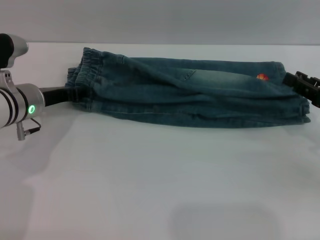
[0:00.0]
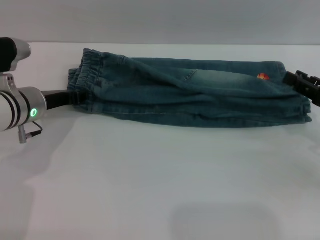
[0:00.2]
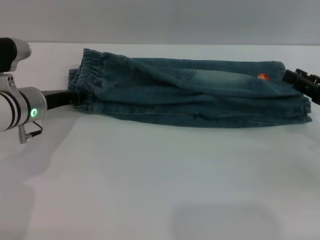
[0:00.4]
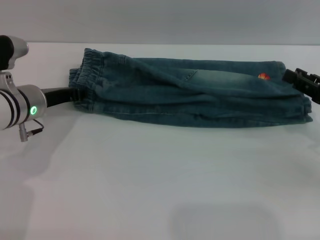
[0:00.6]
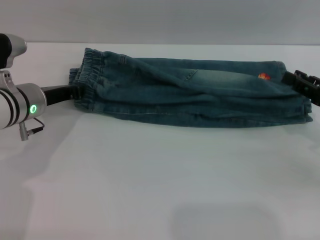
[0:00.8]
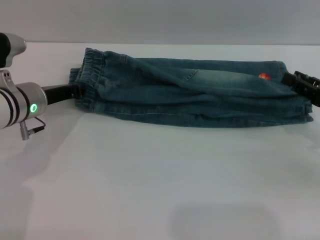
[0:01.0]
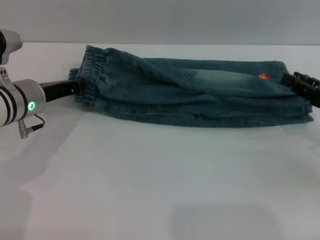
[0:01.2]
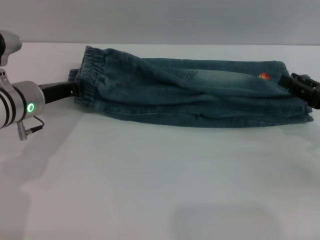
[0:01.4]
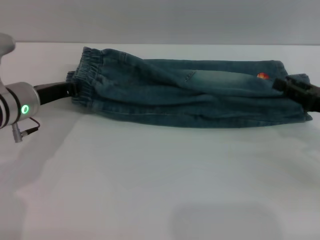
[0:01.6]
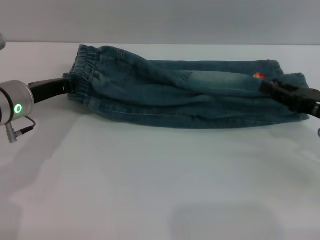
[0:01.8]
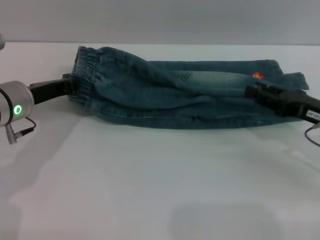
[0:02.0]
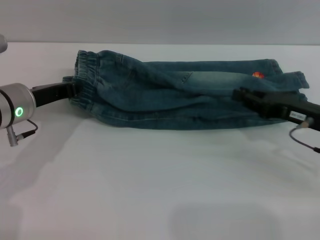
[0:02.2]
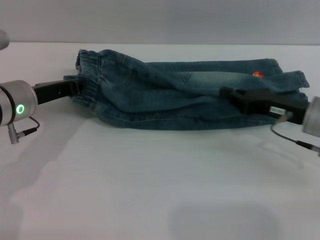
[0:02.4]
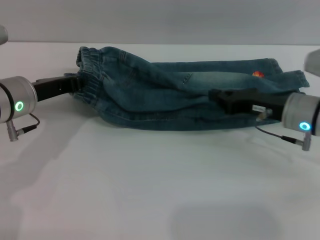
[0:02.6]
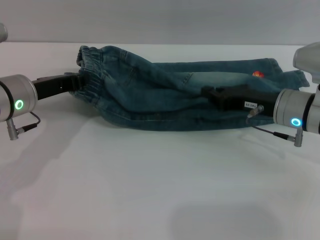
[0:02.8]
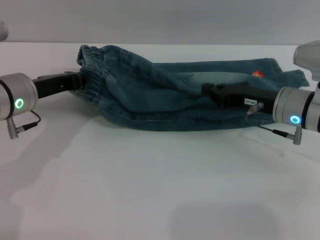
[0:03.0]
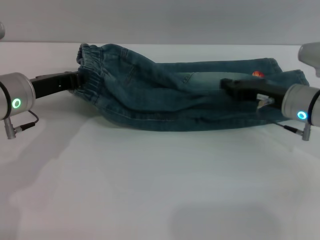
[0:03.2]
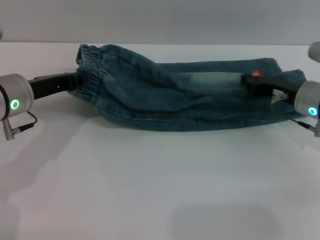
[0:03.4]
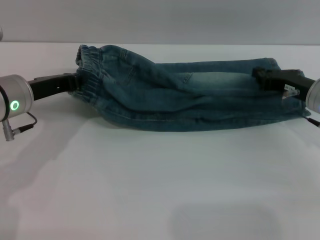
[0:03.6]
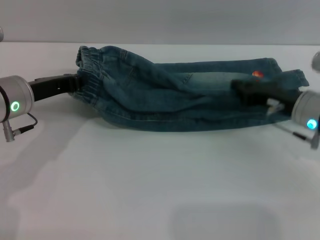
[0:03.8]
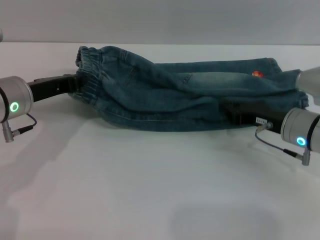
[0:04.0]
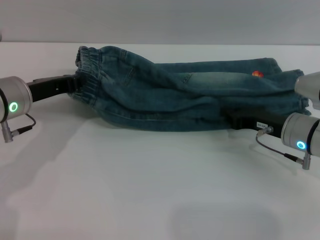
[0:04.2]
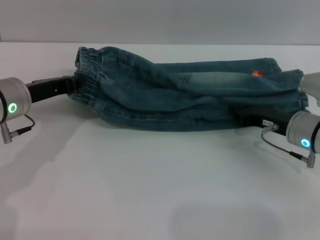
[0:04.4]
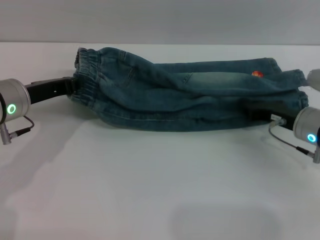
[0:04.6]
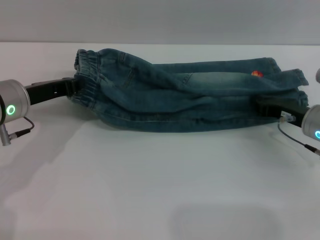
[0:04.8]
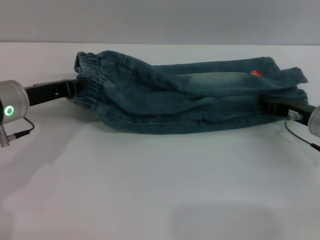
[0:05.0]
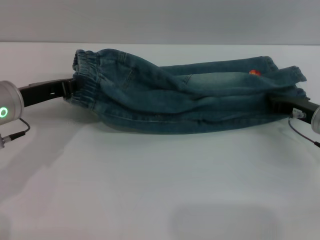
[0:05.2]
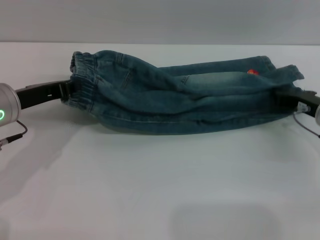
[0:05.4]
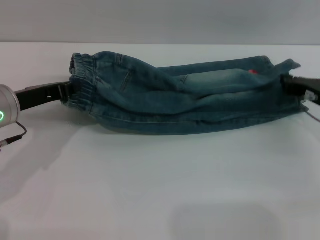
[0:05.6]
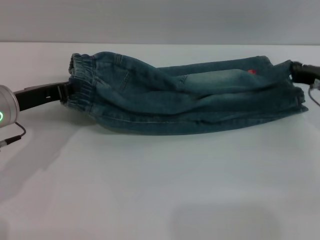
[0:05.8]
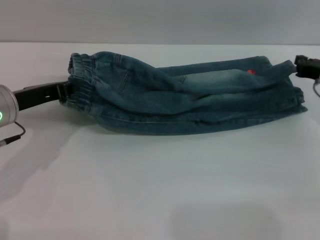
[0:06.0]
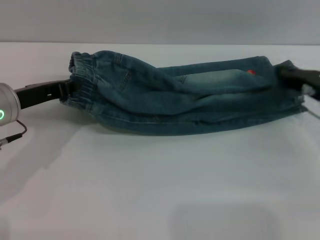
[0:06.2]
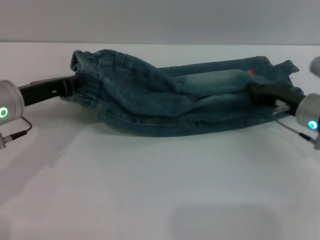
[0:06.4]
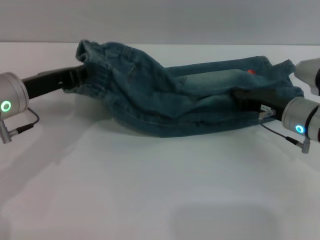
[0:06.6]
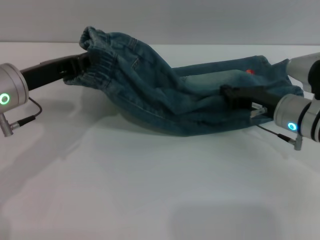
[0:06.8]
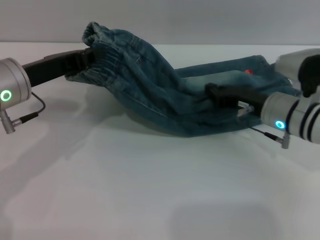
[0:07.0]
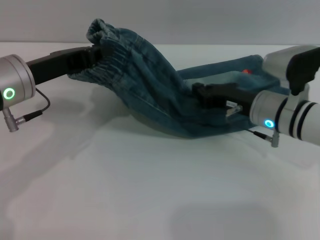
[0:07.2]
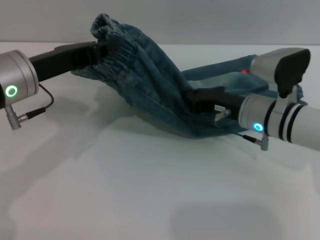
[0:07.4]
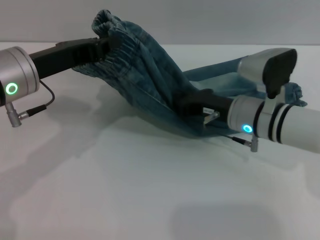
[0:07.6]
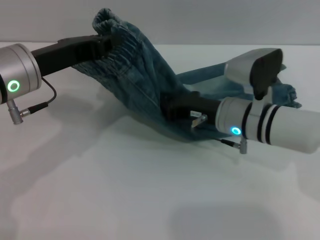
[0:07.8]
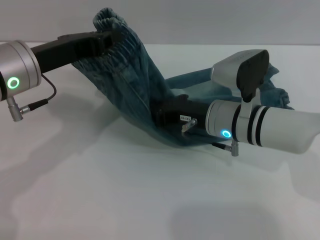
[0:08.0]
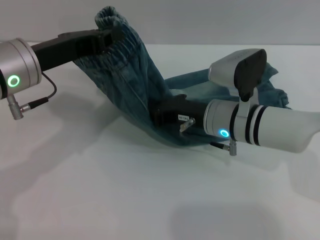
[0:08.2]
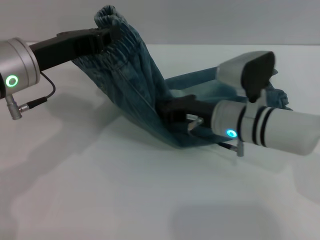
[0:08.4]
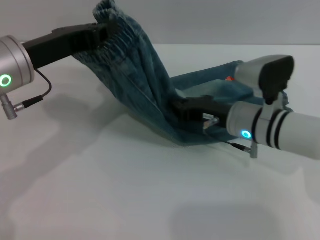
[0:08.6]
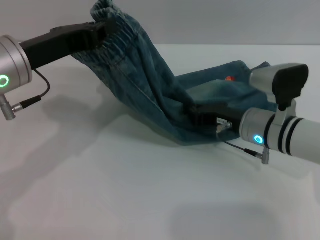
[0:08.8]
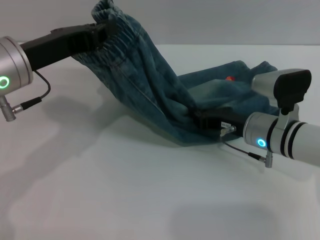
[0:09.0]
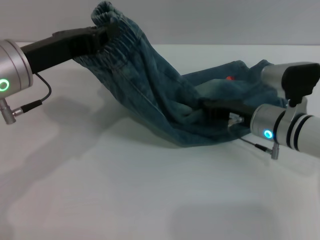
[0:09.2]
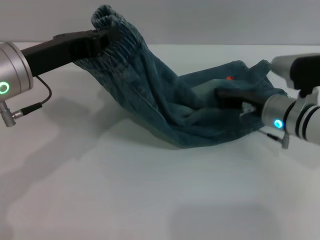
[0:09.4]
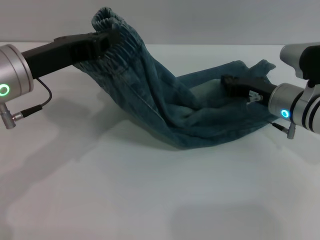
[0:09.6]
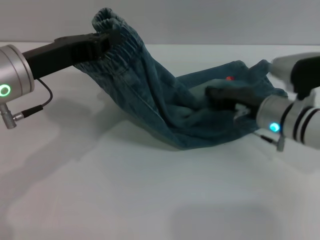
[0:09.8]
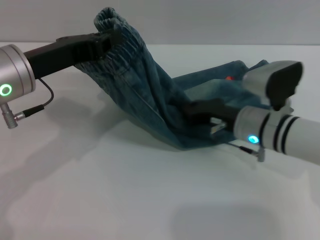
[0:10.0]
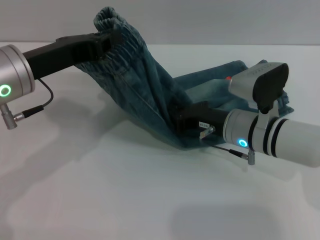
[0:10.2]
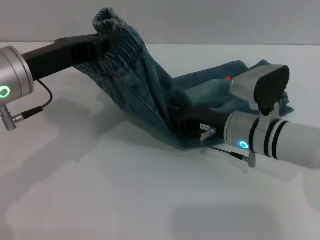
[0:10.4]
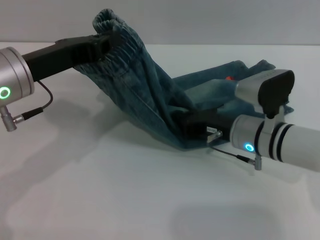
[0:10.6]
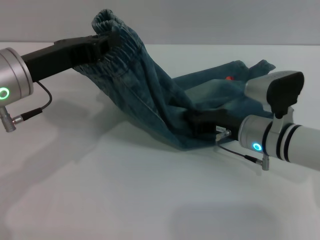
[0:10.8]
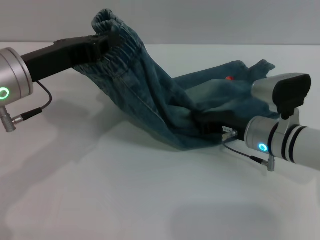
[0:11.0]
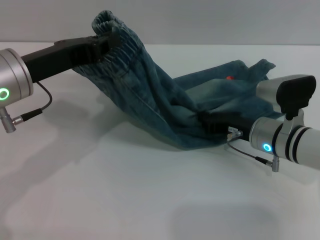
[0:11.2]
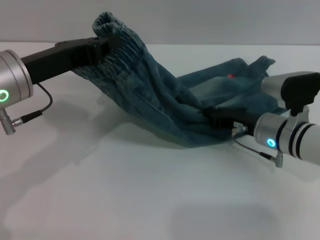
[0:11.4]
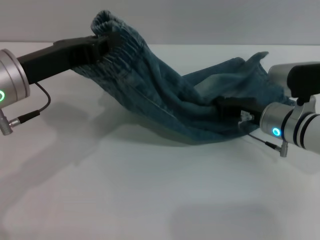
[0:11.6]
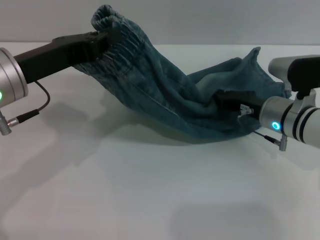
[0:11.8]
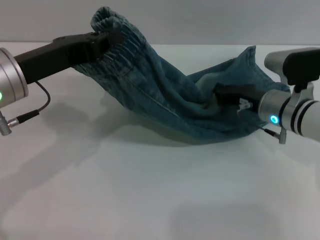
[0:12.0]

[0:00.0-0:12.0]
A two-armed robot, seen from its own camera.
0:00.0 to 0:01.6: The left gripper closes its fingers.
0:01.6 to 0:03.0: The right gripper travels to the left and forward by roughly 15 cm, and closes.
0:03.0 to 0:04.4: The grippers move only a little.
0:04.4 to 0:06.0: The right gripper shifts roughly 5 cm to the right.
0:06.0 to 0:07.6: The right gripper moves to the left, about 15 cm; the left gripper heads upward, covering about 5 cm.
0:09.0 to 0:10.4: The grippers make only small movements.
0:10.4 to 0:12.0: The right gripper heads to the right, covering roughly 5 cm.

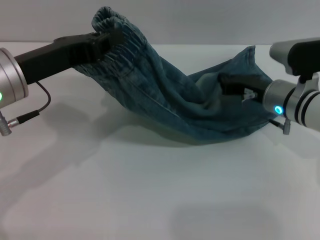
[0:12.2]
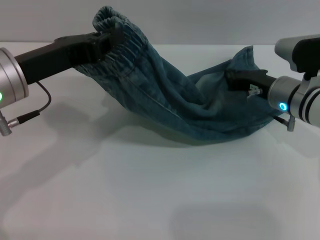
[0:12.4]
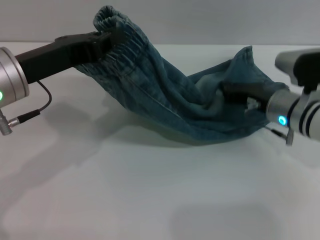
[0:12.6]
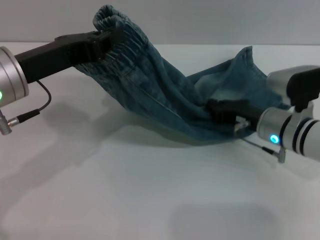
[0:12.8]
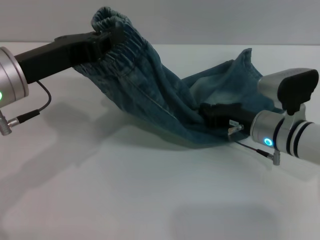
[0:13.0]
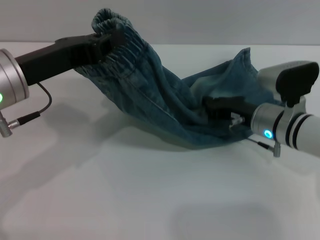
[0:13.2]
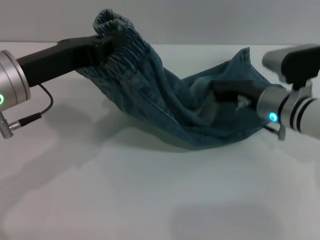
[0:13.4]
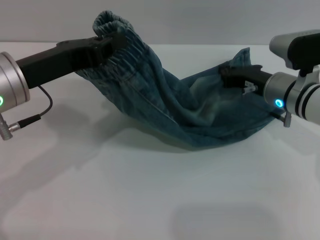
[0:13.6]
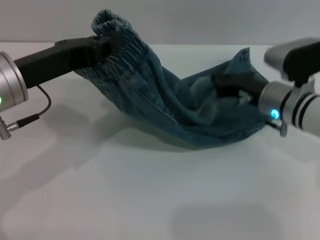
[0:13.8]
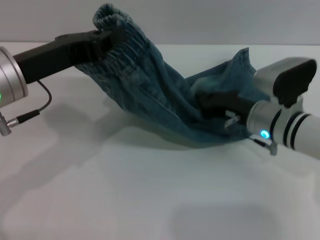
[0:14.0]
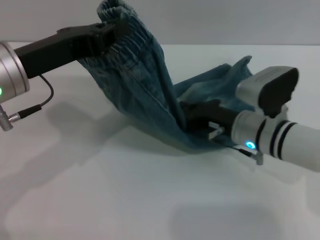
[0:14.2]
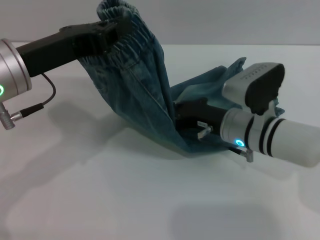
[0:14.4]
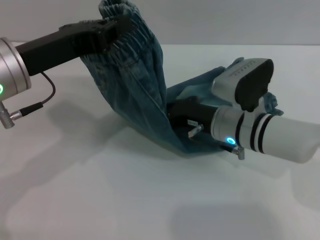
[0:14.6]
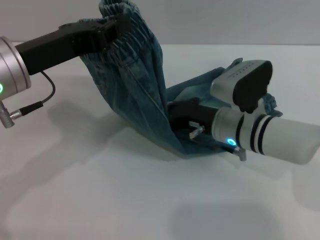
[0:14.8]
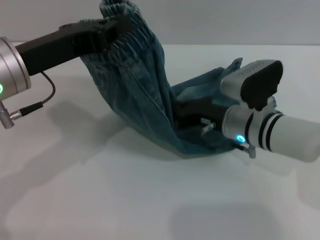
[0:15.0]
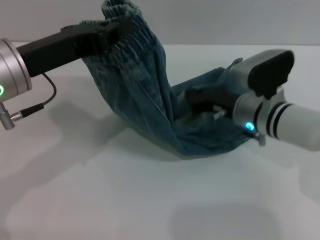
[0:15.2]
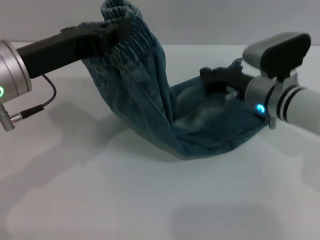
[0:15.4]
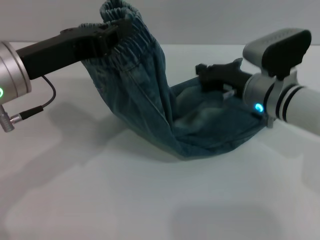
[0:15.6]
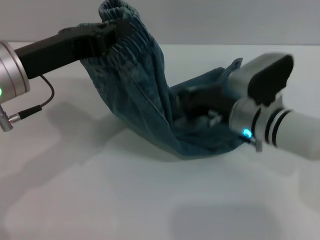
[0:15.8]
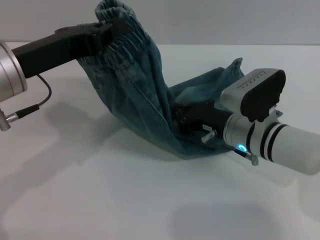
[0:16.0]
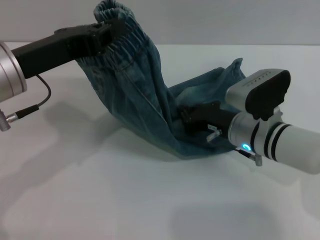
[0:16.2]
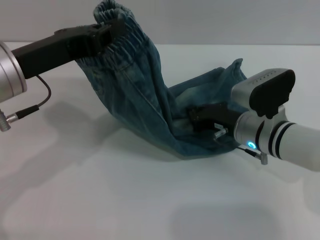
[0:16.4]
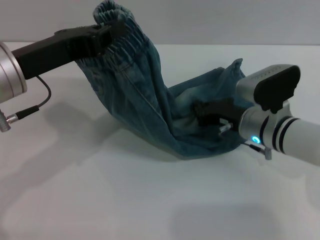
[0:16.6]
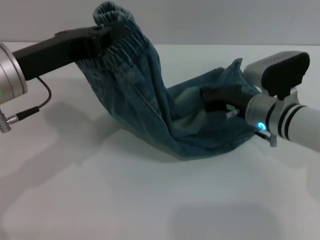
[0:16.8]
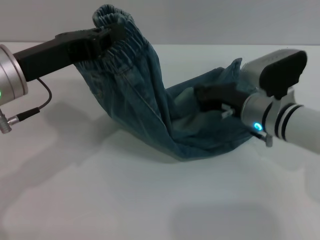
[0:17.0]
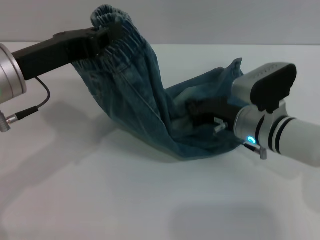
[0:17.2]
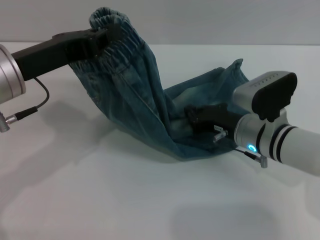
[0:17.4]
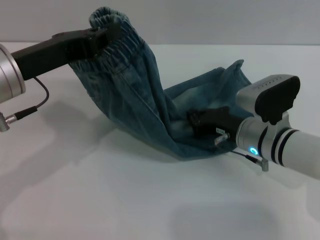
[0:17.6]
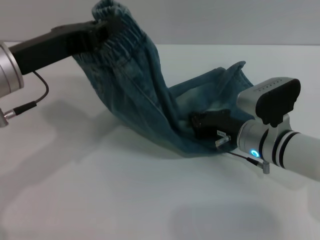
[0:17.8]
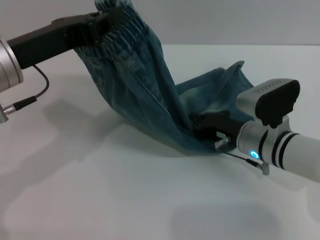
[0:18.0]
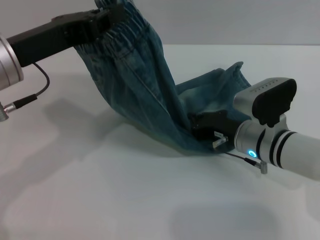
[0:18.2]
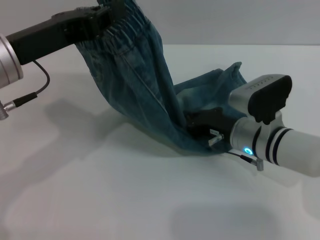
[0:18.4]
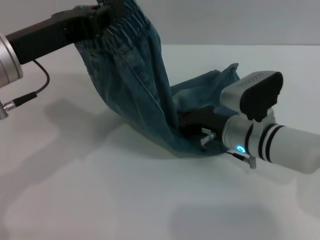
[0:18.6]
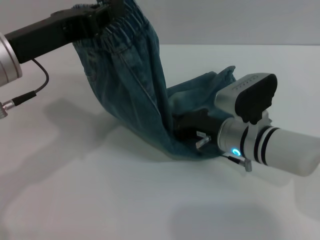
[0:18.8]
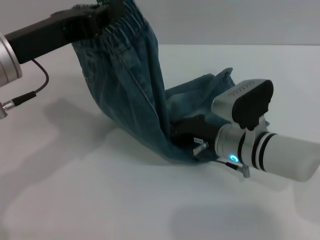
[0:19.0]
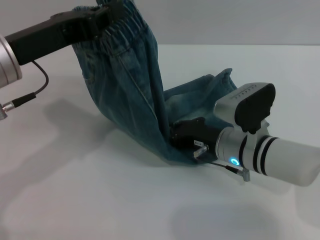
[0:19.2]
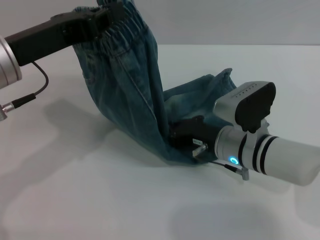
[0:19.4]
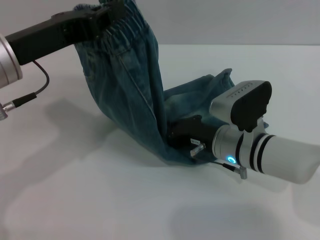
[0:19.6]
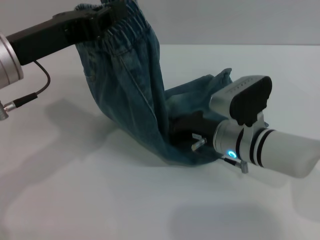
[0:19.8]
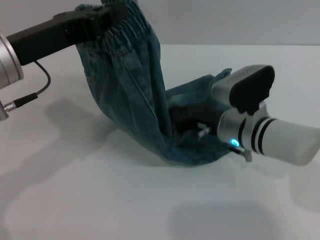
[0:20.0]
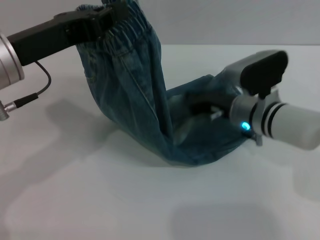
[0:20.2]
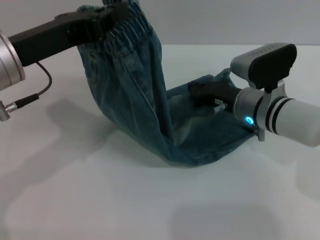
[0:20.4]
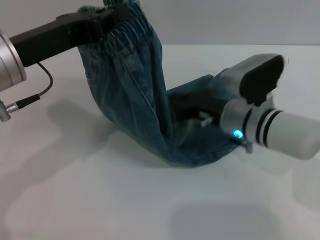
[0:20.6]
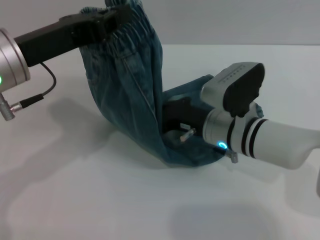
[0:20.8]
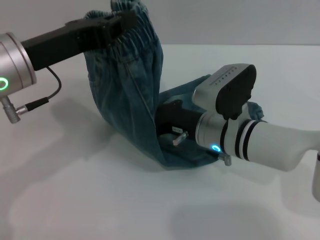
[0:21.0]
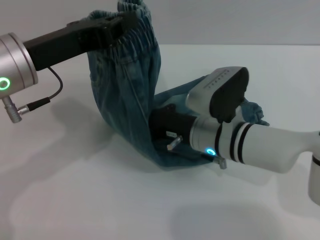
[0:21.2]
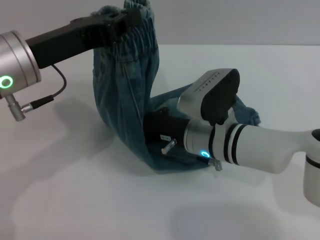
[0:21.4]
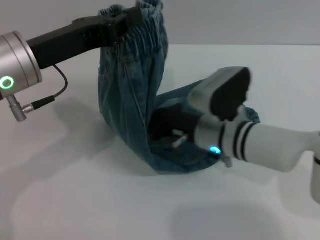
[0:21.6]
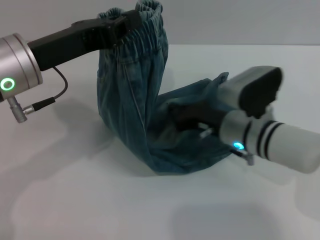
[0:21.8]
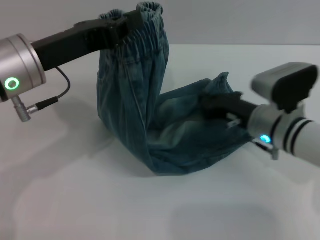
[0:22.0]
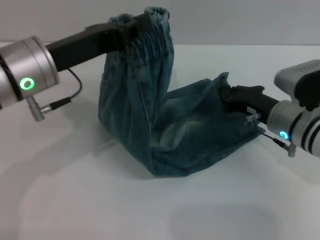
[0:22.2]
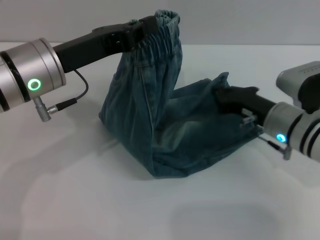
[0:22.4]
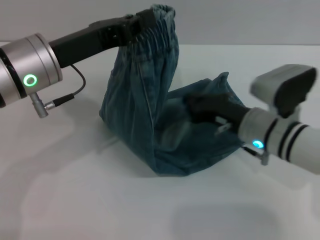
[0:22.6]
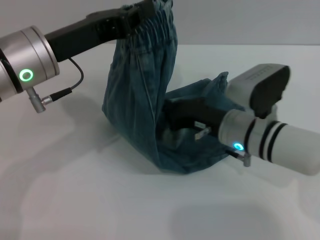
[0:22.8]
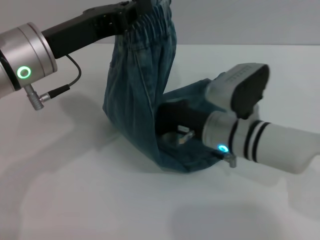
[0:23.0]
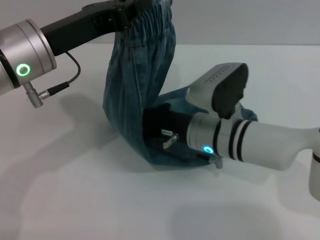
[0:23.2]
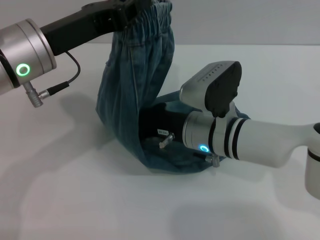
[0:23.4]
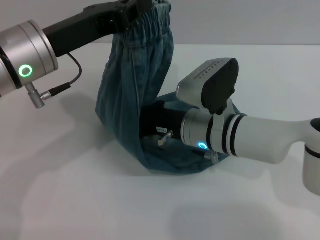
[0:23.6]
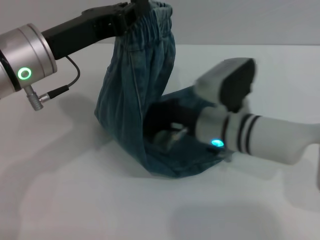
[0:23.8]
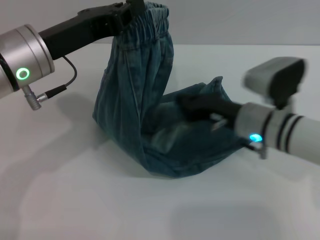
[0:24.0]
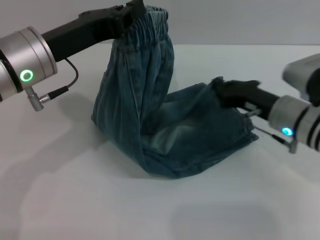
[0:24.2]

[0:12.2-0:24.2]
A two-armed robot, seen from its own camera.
0:12.2 to 0:13.8: There are only small adjustments of the grippers.
0:15.2 to 0:19.8: The grippers make only small movements.
0:19.8 to 0:21.2: There are only small adjustments of the grippers.
0:21.2 to 0:22.6: The right gripper heads to the right, covering approximately 5 cm.
0:22.6 to 0:24.2: The right gripper moves some 10 cm to the left and comes back.
